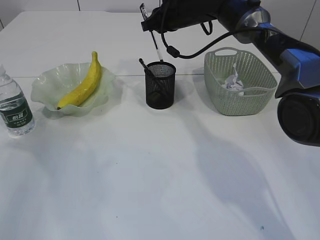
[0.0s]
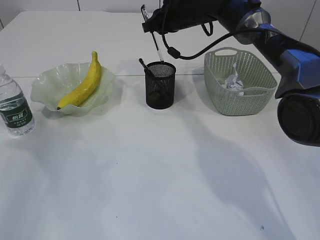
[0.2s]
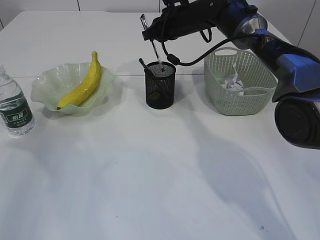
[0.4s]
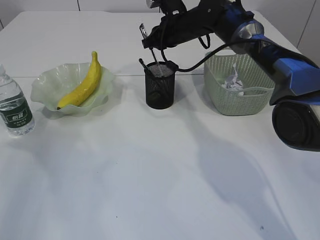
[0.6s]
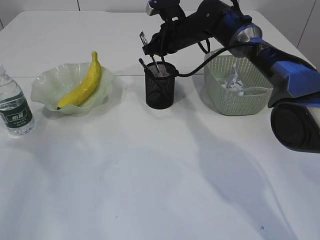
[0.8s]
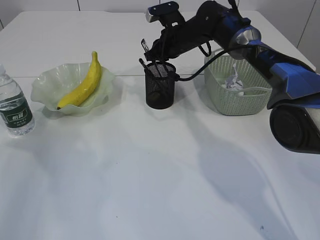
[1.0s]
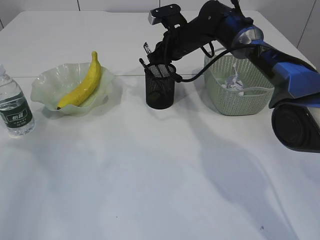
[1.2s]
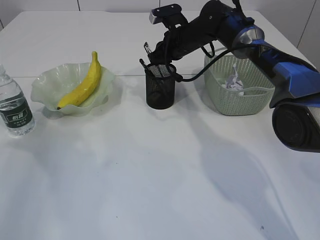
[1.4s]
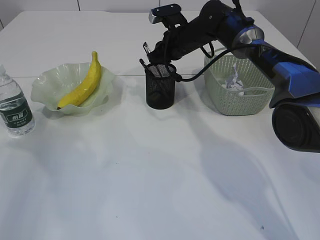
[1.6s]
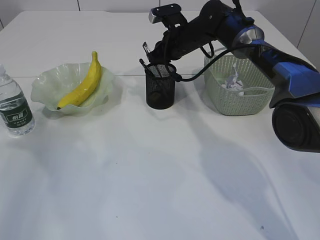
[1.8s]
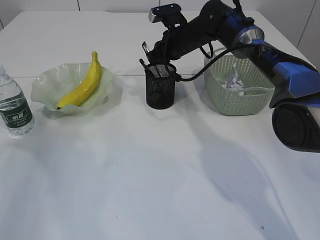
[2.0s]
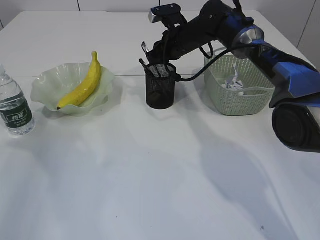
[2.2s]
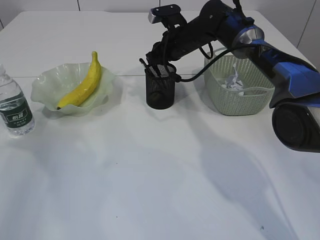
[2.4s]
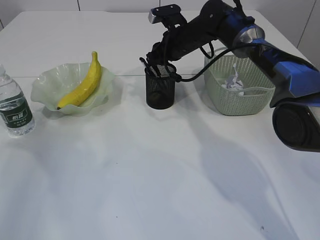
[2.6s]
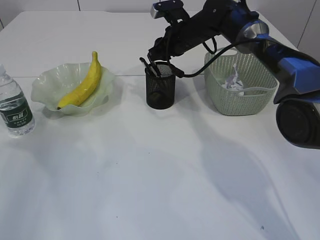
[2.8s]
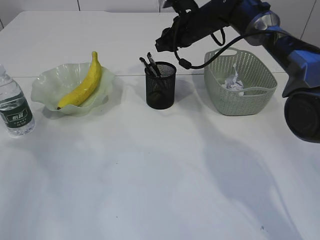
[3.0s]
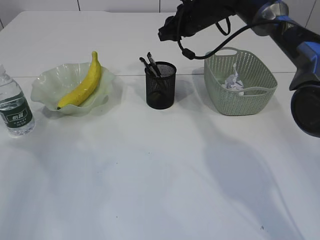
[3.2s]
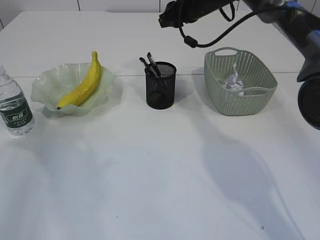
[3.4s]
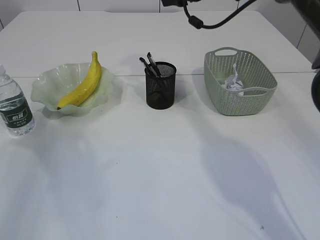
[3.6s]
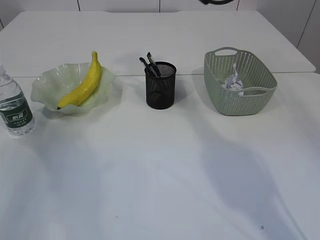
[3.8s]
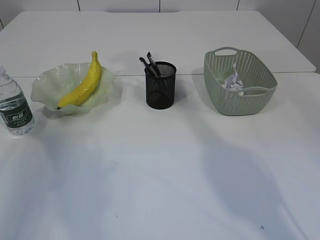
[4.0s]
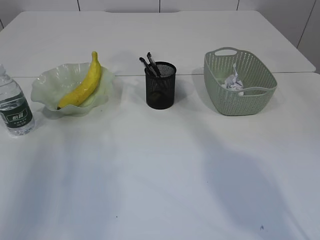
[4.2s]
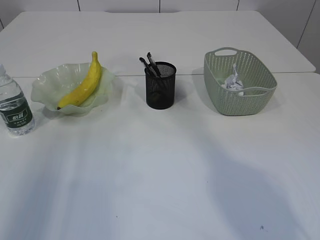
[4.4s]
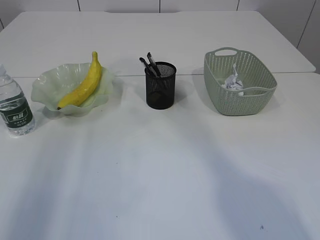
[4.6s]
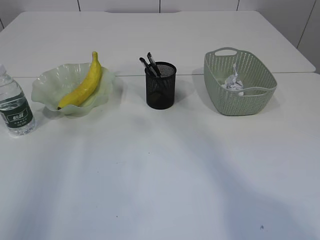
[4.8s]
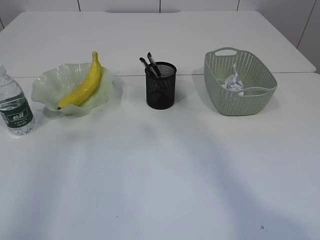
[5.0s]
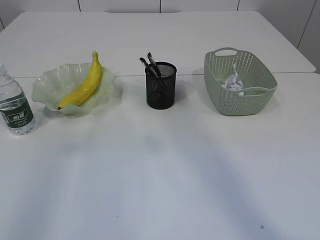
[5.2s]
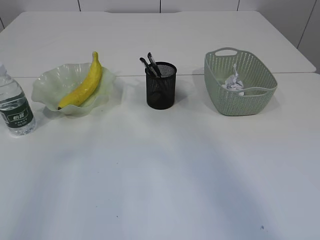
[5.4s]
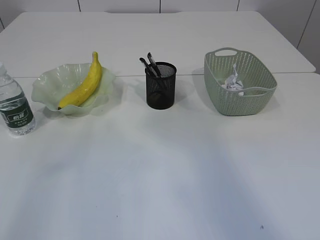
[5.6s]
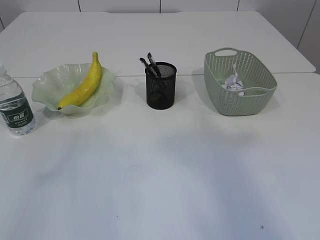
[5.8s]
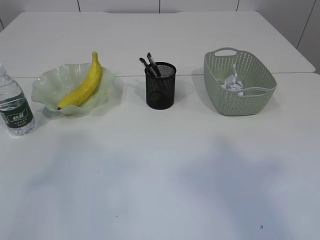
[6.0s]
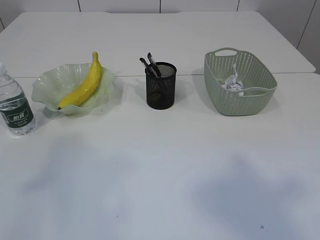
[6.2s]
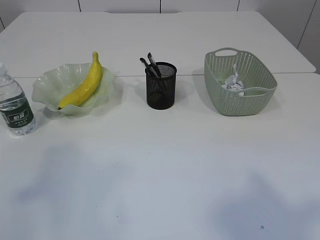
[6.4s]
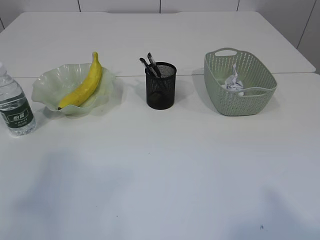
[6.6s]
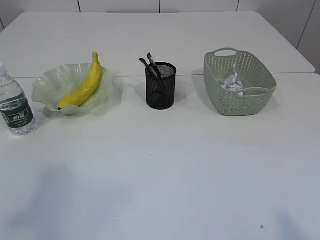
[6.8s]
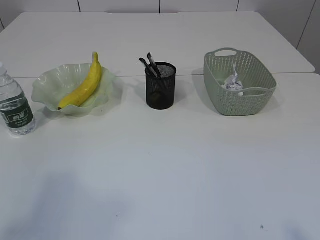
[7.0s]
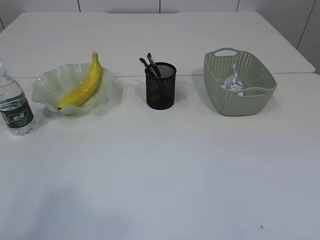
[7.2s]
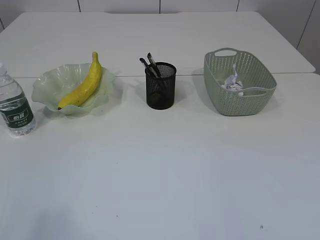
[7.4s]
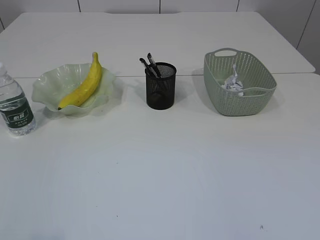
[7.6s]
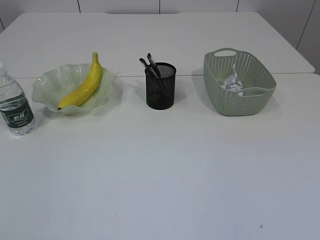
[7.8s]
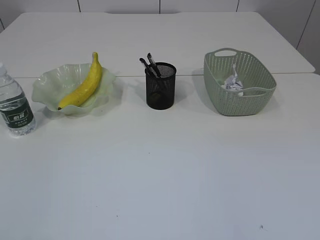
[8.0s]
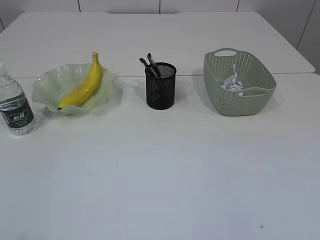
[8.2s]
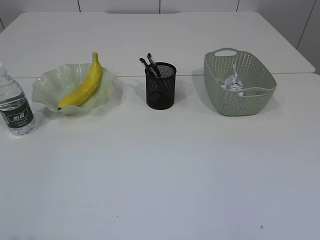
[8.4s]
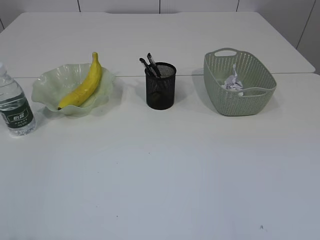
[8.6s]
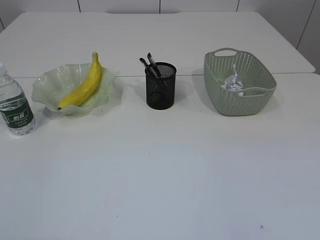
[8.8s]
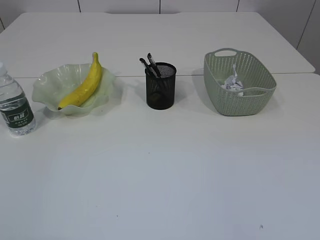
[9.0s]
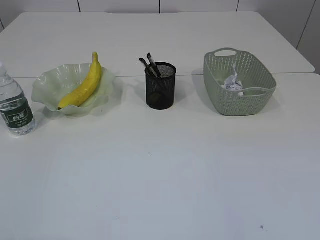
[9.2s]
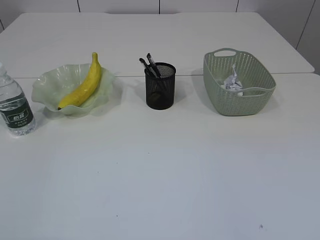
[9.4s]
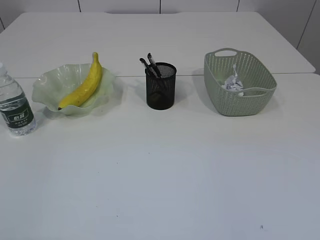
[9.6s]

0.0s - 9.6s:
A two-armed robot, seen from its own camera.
Step, 0.0s - 3.0s: Place the pen into the pen holder.
0.0s - 1.6s: The right gripper goes about 5 cm downward.
1.6s - 3.2s: The right gripper is displaced upward by some 5 cm.
3.2s - 4.8s: The left gripper shifts approximately 20 cm upward and backward, while the right gripper travels upward and backward by approximately 40 cm, and closes up.

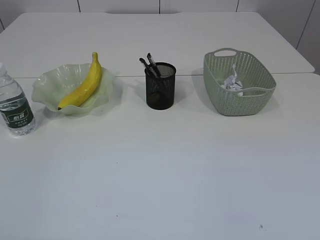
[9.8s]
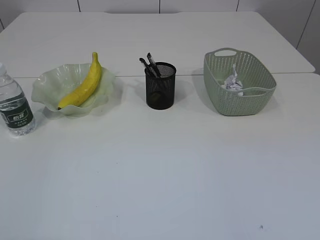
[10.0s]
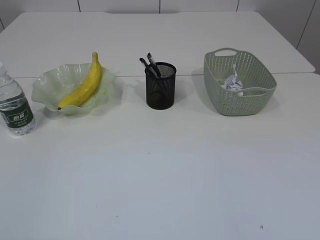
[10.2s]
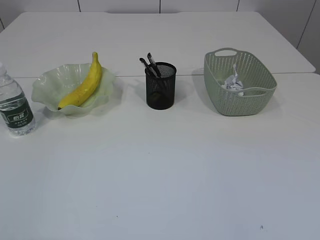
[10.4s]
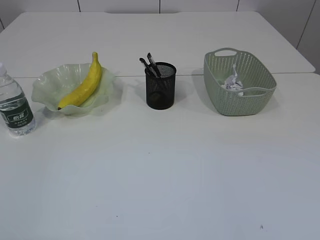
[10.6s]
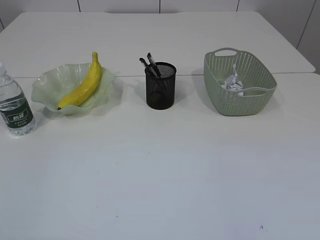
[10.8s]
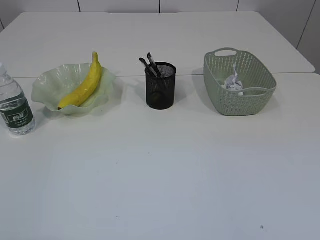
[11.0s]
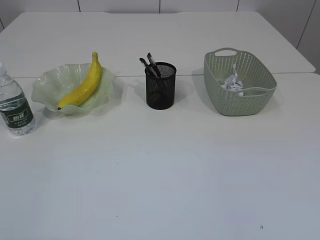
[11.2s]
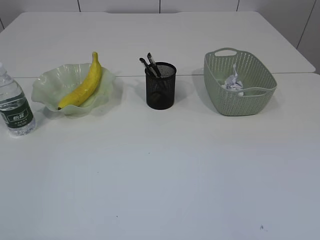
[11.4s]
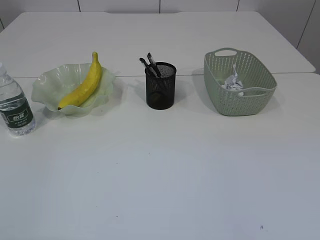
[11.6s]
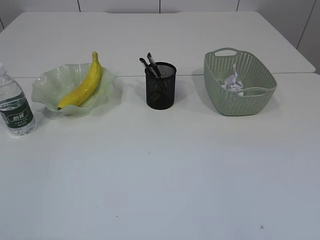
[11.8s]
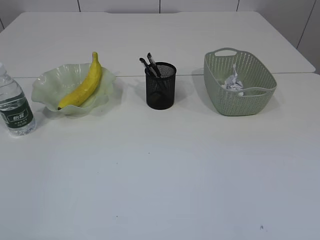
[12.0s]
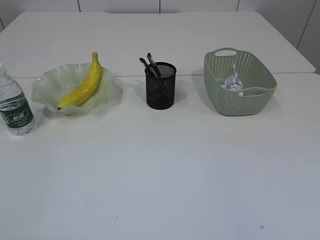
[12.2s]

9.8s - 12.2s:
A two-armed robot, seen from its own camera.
11.0s - 12.2s: The two grippers keep their place.
